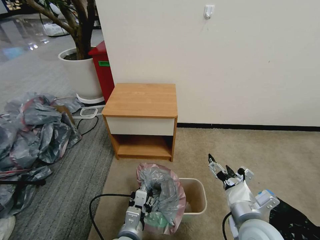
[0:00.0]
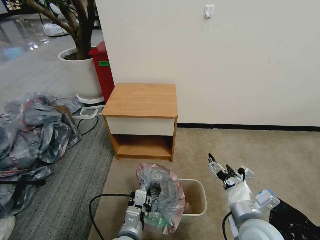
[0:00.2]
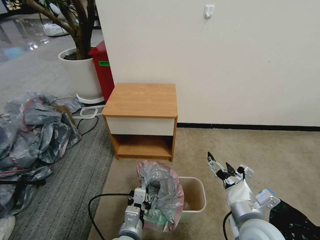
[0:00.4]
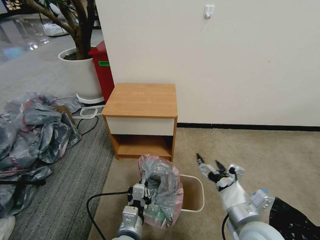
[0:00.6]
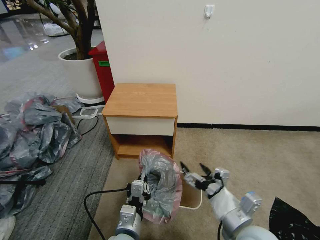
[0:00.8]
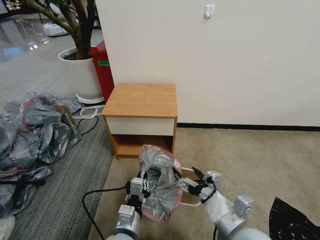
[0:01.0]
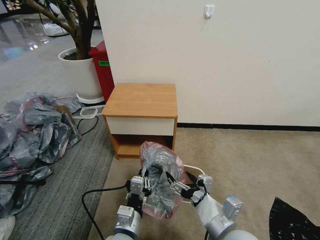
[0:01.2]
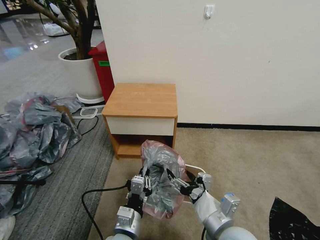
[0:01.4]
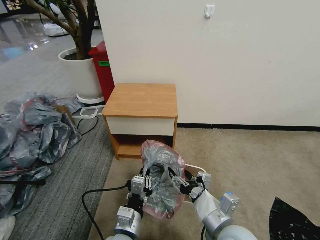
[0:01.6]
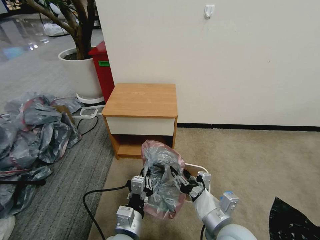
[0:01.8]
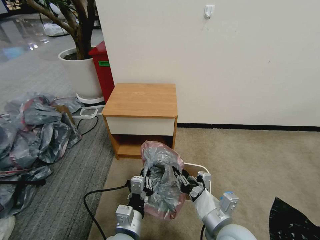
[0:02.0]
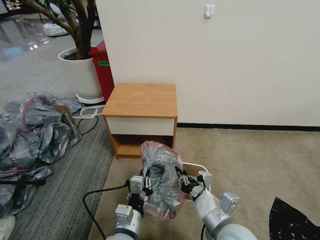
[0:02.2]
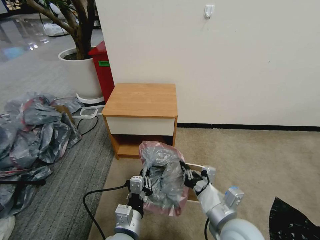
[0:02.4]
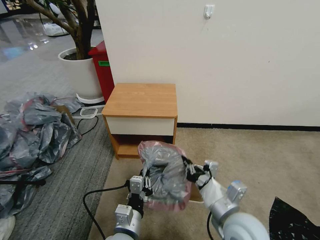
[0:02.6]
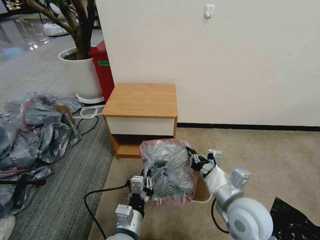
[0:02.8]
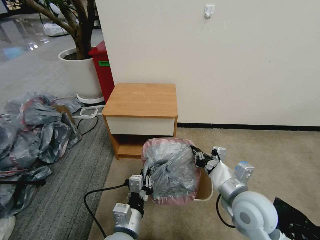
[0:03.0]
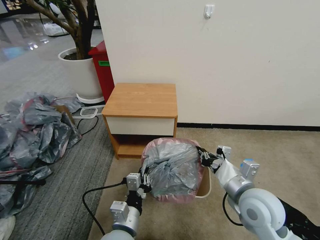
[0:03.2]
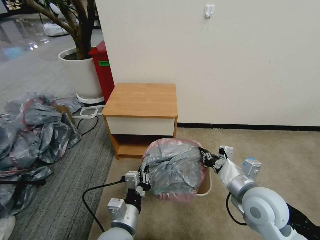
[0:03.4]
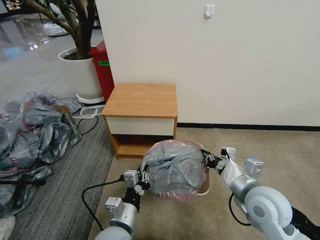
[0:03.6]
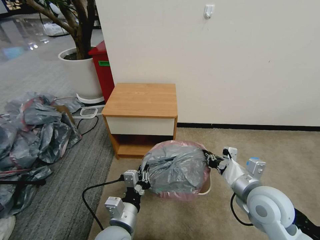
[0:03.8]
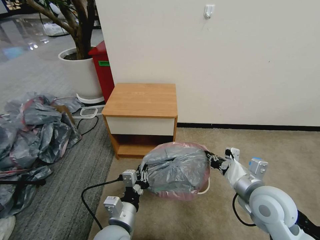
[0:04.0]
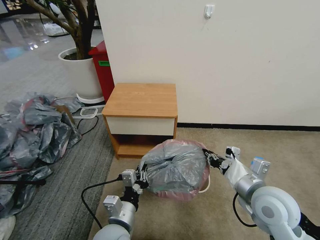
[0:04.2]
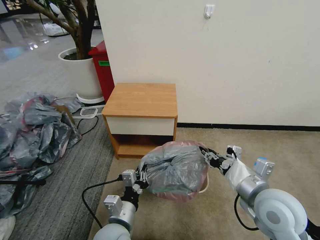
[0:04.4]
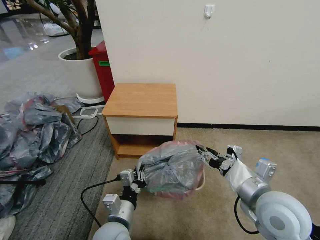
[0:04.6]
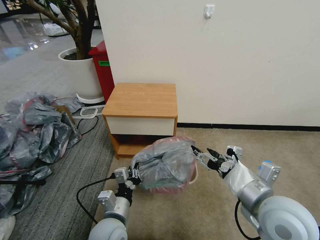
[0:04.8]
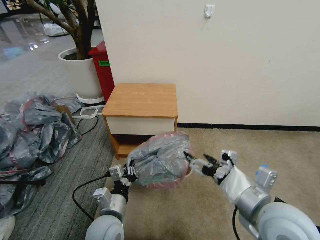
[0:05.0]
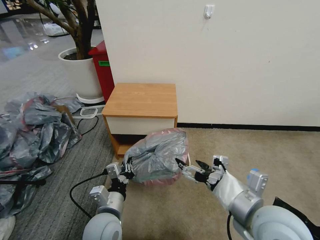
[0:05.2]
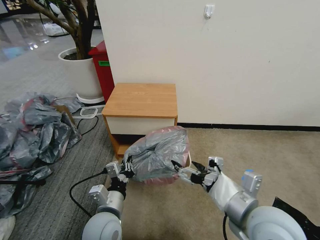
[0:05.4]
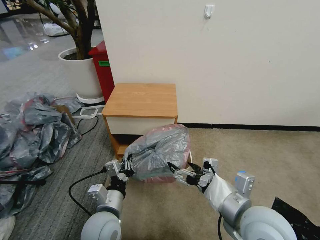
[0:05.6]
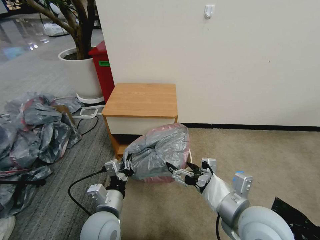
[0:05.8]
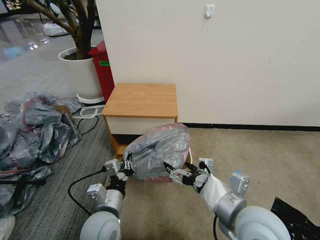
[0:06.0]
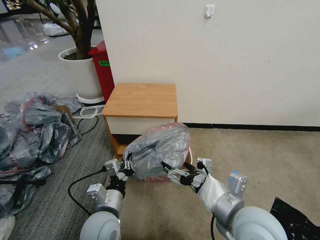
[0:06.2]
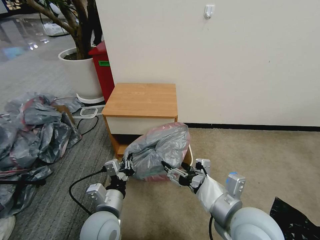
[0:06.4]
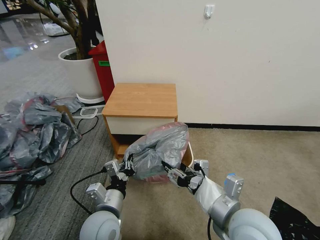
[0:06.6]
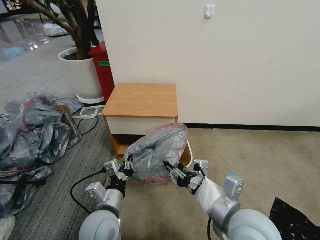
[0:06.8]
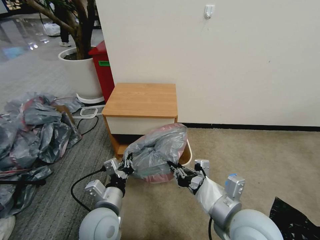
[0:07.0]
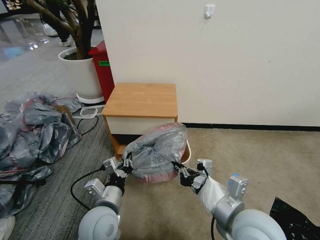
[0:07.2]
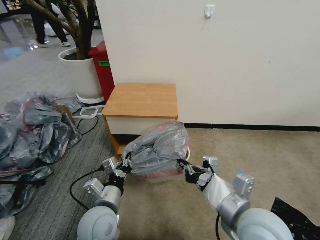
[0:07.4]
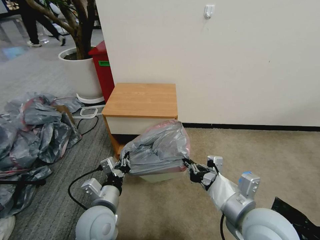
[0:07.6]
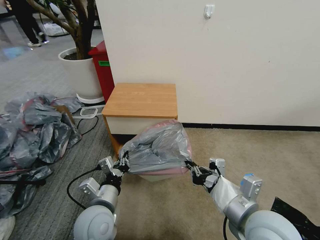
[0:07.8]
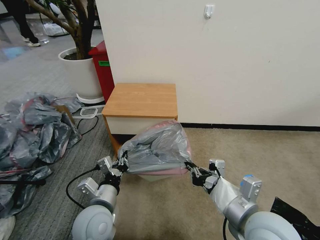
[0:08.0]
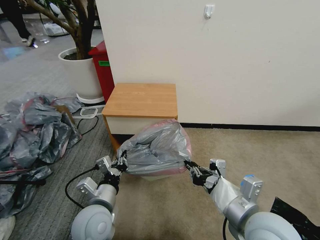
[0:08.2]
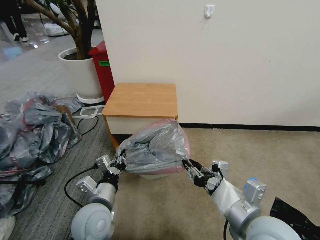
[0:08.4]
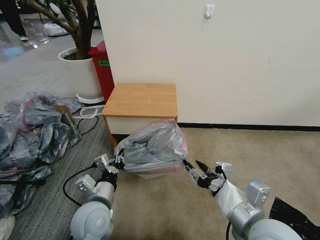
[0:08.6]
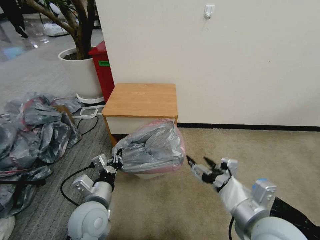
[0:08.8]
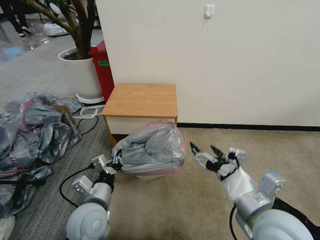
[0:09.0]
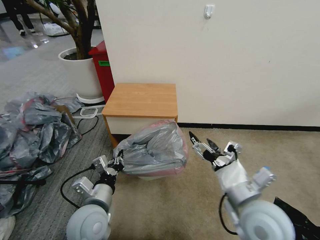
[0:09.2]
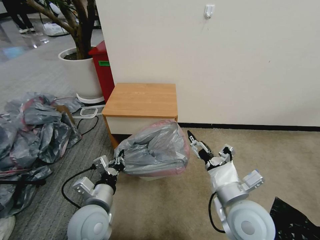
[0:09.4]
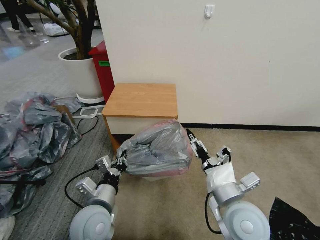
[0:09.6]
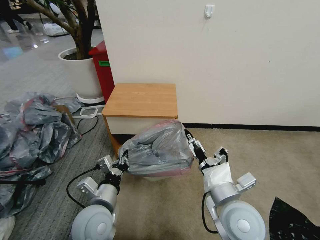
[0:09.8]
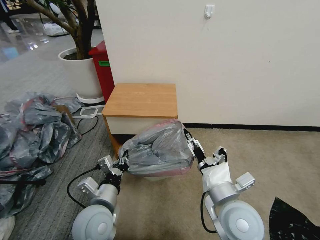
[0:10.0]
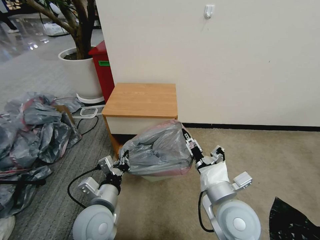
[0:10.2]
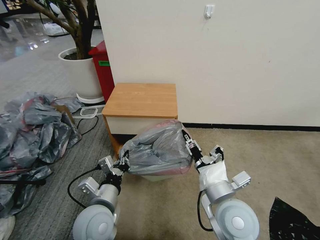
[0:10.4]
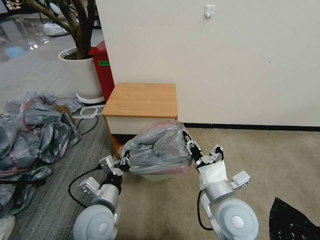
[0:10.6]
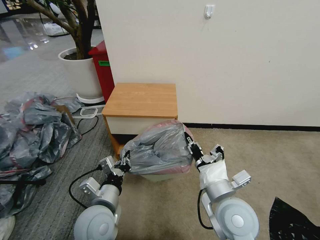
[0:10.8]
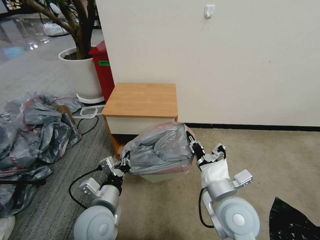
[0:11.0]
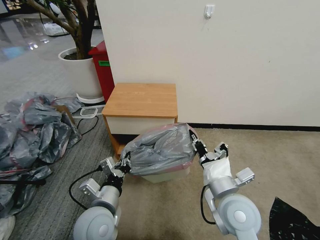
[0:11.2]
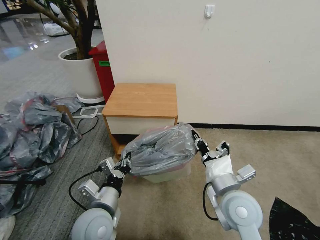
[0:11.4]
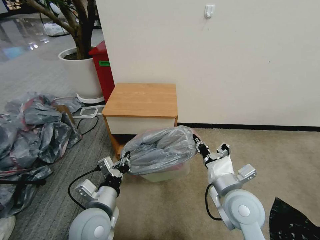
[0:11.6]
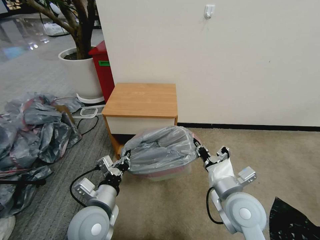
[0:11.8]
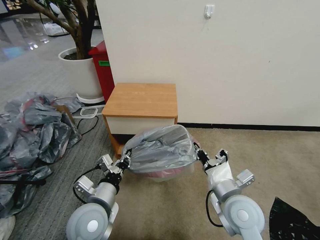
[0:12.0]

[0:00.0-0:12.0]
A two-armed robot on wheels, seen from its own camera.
Task of the whole recording: Pick up the garbage bag from the table and place it over the trash can.
0:00.0 to 0:01.6: The left gripper closes; the right gripper goes approximately 5 cm to the left.
0:01.6 to 0:03.0: The right gripper travels forward and to the right by some 10 cm, and closes.
0:03.0 to 0:04.4: The right gripper moves approximately 5 cm.
0:04.4 to 0:06.0: The right gripper travels to the left by about 5 cm, and opens up.
0:06.0 to 0:07.6: The right gripper closes its fingers.
0:07.6 to 0:09.0: The right gripper opens its fingers.
0:09.0 to 0:10.4: The right gripper travels to the left and downward by roughly 10 cm, and closes.
0:10.4 to 0:12.0: The grippers move only a little.

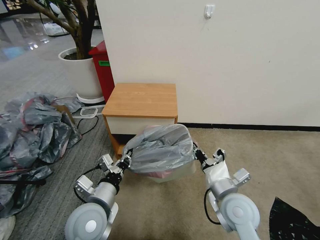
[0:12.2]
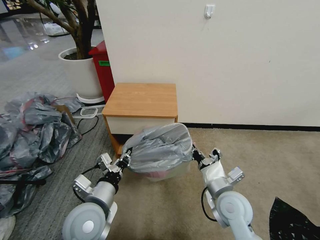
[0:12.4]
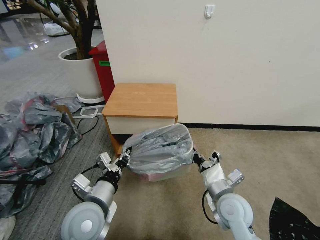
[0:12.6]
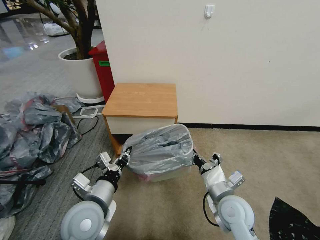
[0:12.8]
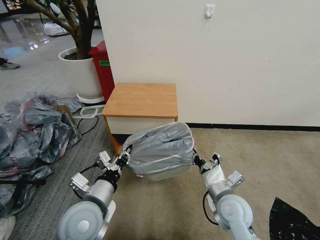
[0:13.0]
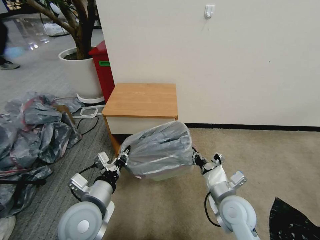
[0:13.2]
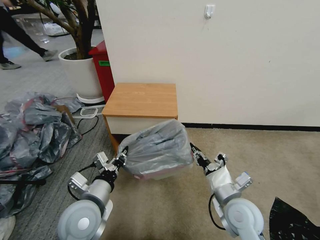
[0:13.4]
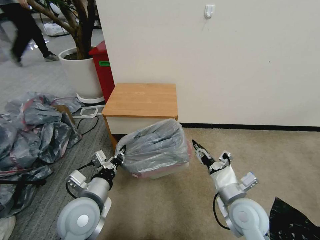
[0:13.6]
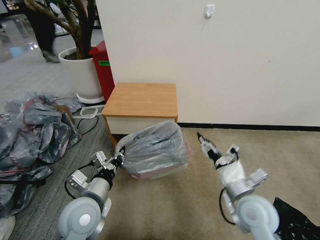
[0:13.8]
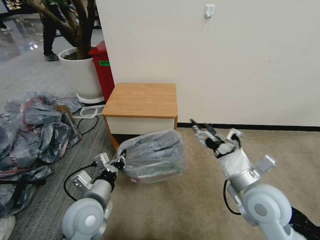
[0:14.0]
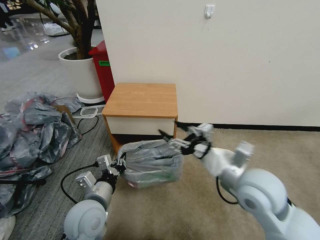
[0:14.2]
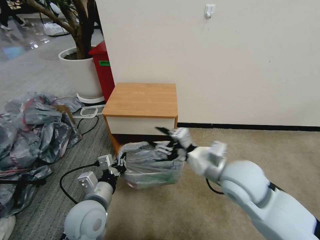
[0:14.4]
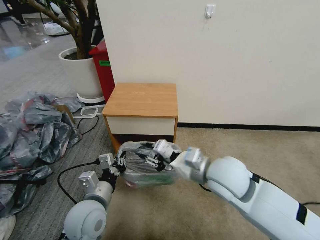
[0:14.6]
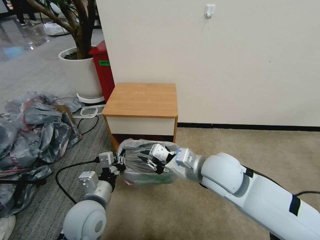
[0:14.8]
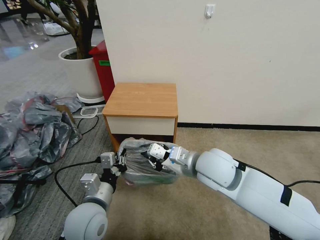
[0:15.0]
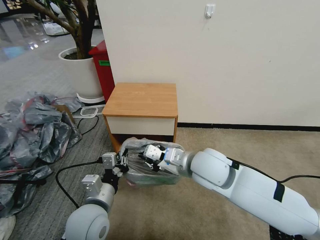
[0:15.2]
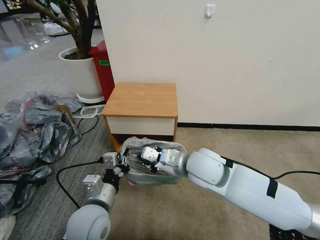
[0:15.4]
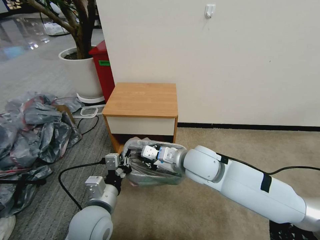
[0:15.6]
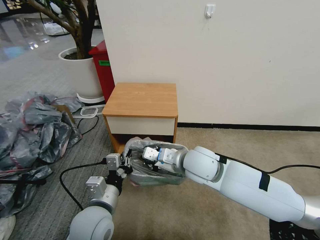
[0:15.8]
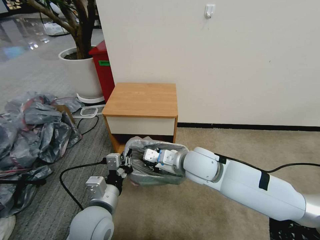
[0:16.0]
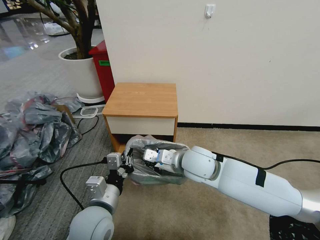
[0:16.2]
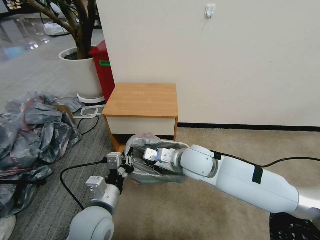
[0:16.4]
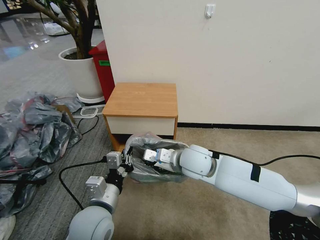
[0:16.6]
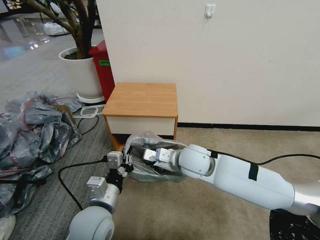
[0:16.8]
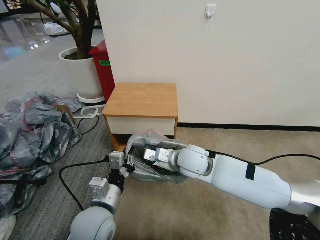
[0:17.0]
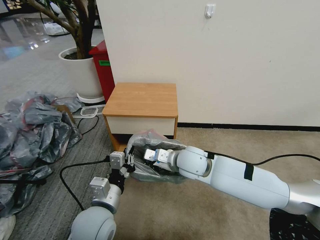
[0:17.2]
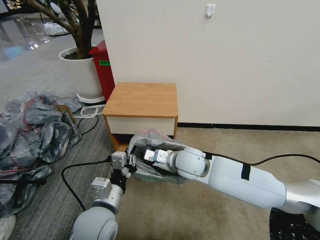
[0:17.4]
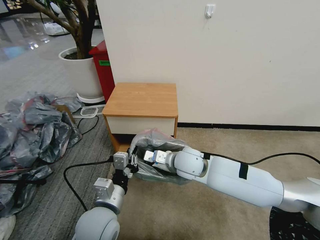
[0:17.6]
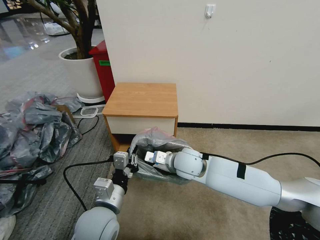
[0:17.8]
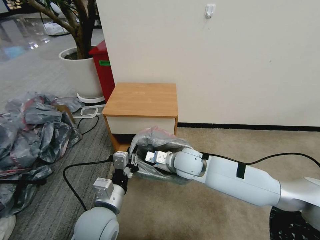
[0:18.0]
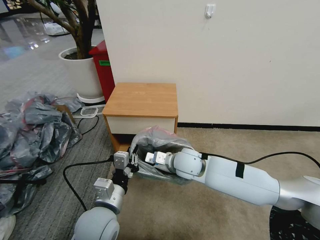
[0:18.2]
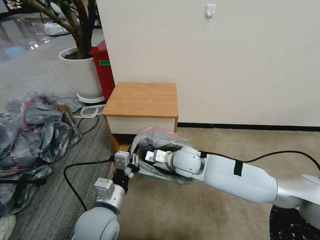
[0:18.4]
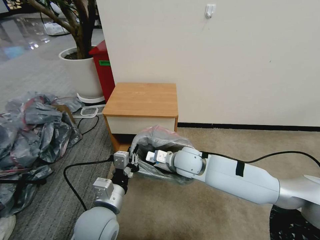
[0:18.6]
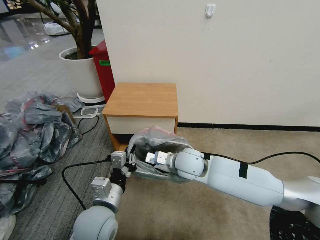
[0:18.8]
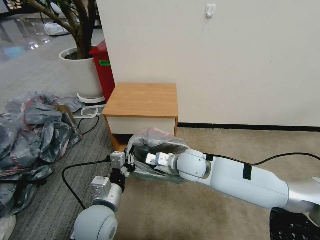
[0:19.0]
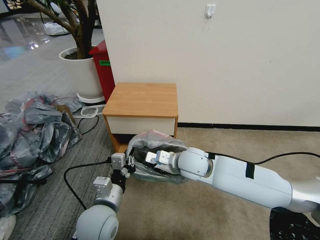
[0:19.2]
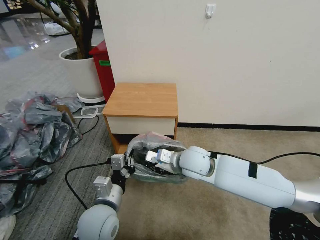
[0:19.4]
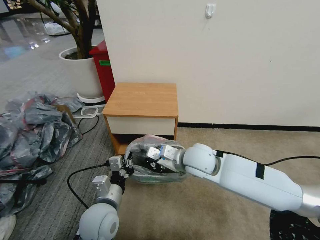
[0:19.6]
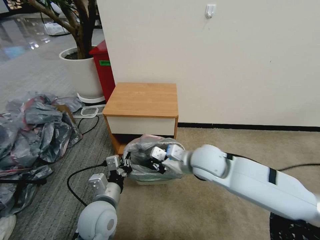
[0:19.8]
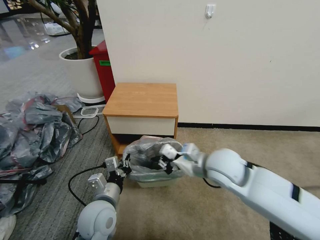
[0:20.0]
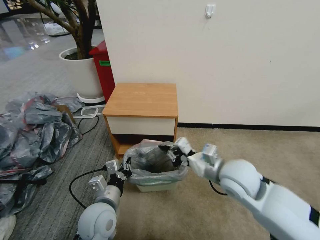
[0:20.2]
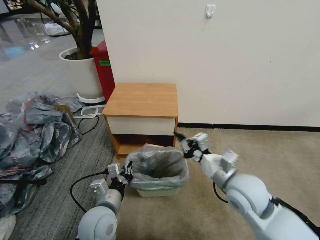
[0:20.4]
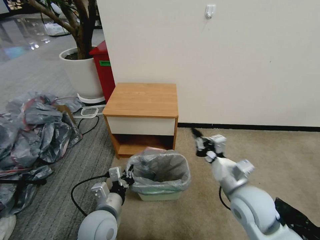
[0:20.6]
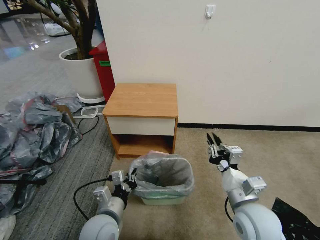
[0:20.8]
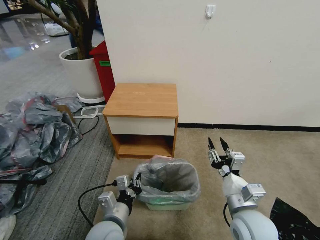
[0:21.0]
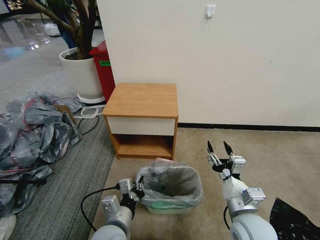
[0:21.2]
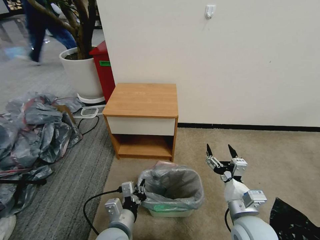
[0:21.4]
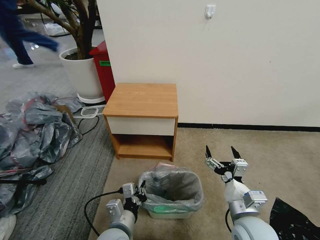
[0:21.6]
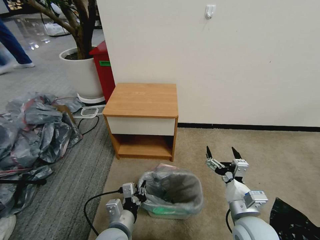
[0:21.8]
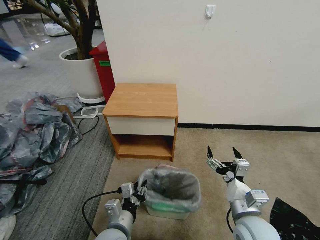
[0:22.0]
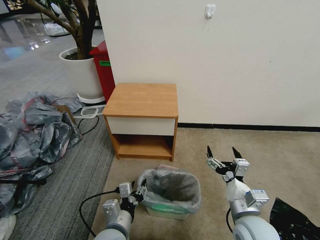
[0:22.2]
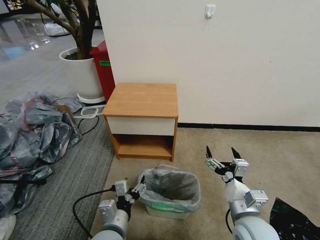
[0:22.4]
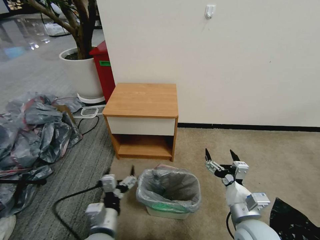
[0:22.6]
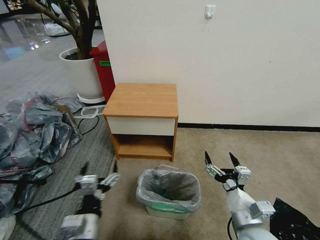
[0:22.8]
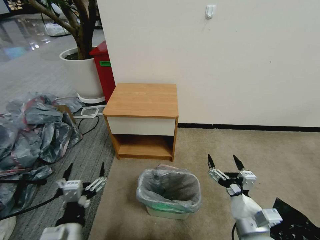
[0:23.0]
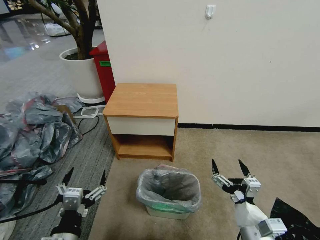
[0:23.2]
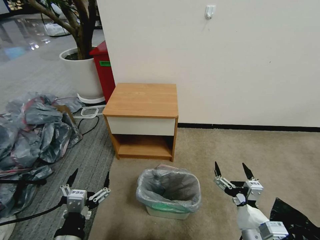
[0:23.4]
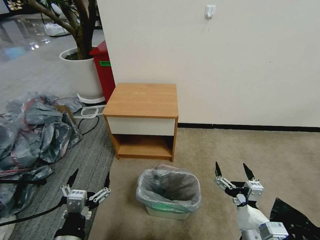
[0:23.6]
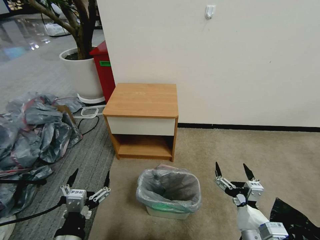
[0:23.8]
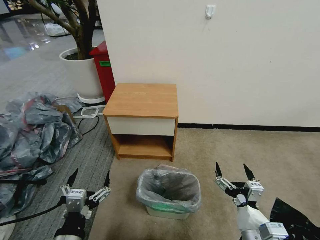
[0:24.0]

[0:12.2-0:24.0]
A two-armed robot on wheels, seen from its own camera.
Task of the whole recording: Pick up the garbage bag from the table and place it over the trash can.
0:12.2 to 0:13.6: The right gripper opens up.
0:13.6 to 0:15.2: The right gripper goes approximately 20 cm upward, to the left and forward, and closes.
0:15.2 to 0:16.6: The right gripper shifts by some 5 cm.
0:16.6 to 0:18.2: The right gripper ends up roughly 5 cm from where it was.
0:18.2 to 0:19.6: The right gripper ends up about 5 cm from where it was.
0:19.6 to 0:21.0: The right gripper goes roughly 20 cm backward and to the right, and opens up.
0:21.0 to 0:22.6: The left gripper opens up. Meanwhile the right gripper opens.
0:22.6 to 0:24.0: The left gripper heads backward and to the left, covering some 10 cm; the right gripper shifts about 5 cm backward.
